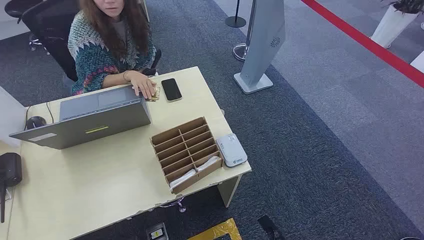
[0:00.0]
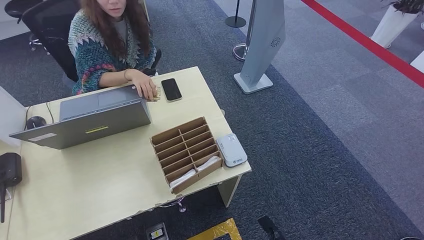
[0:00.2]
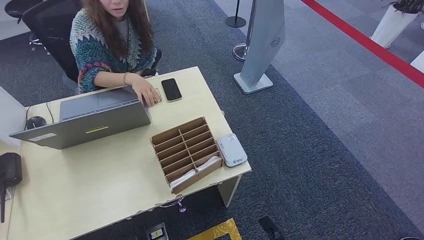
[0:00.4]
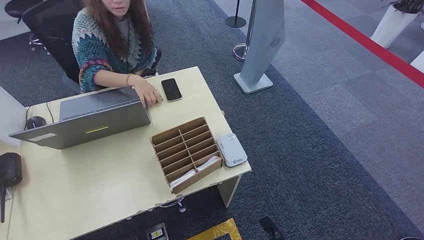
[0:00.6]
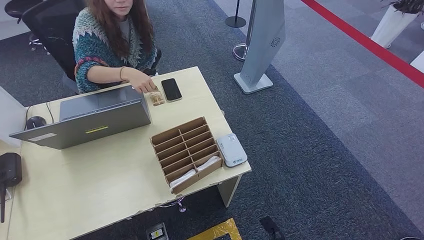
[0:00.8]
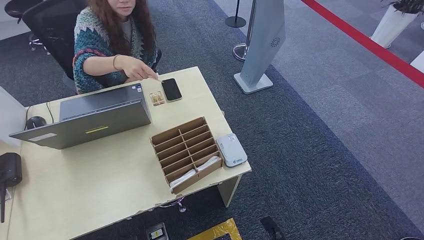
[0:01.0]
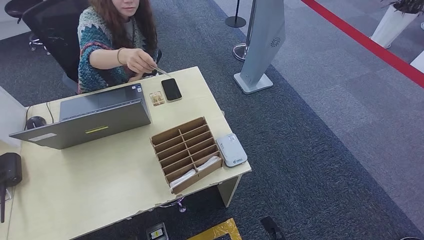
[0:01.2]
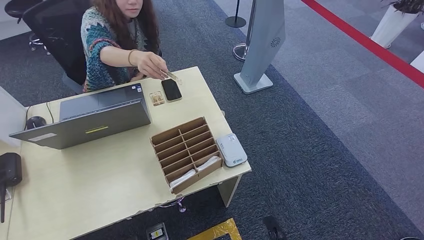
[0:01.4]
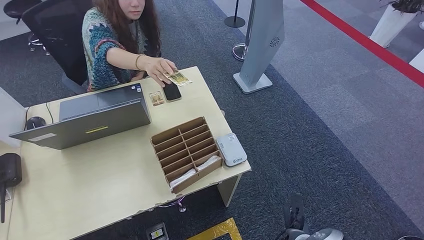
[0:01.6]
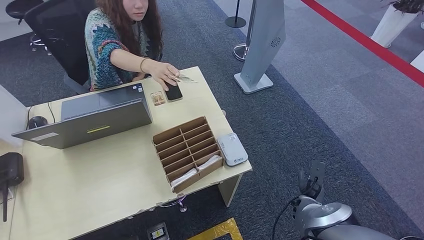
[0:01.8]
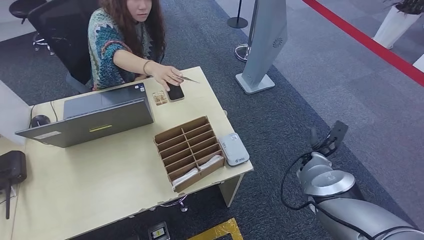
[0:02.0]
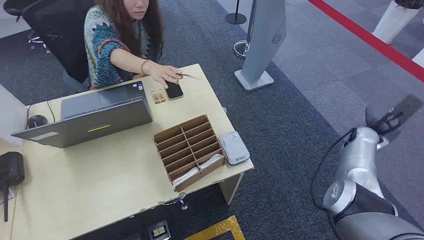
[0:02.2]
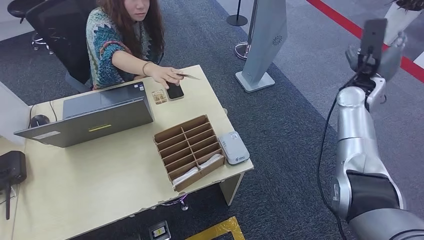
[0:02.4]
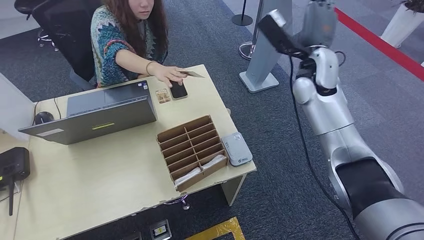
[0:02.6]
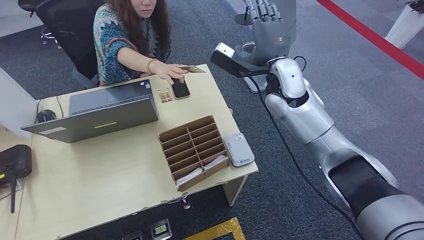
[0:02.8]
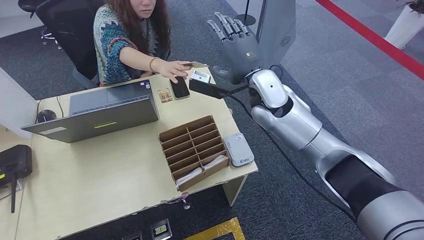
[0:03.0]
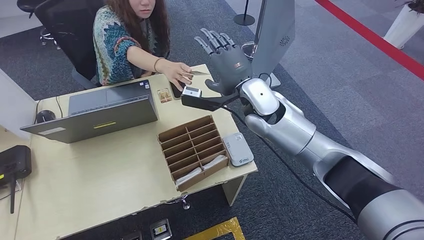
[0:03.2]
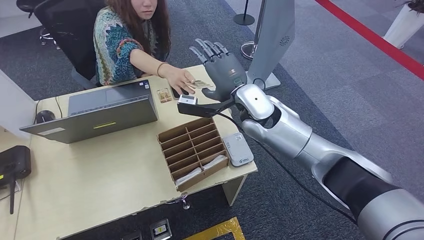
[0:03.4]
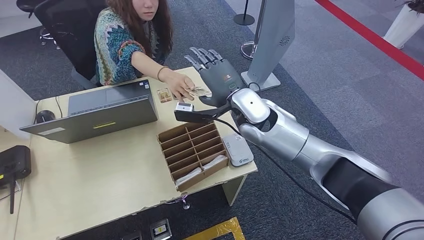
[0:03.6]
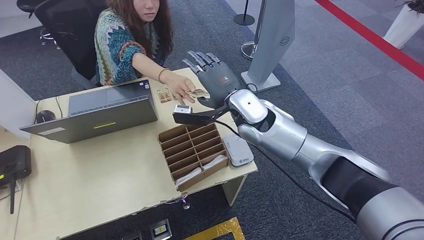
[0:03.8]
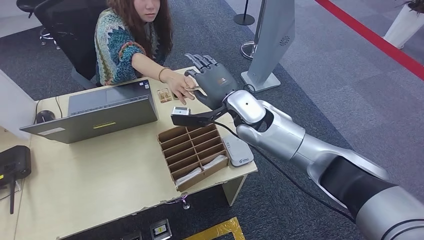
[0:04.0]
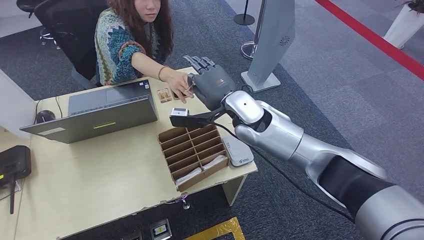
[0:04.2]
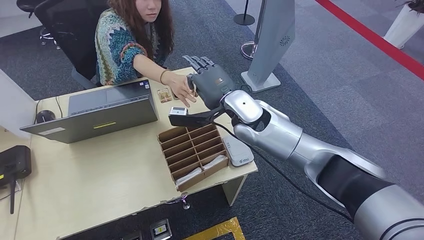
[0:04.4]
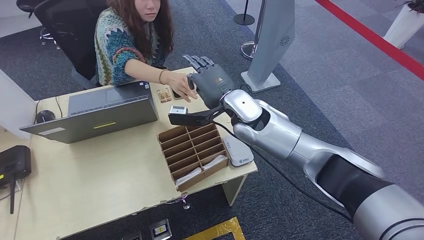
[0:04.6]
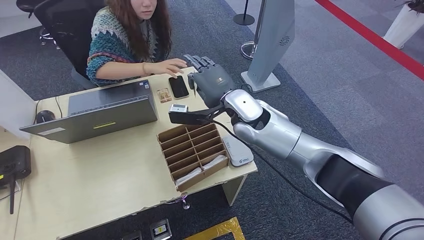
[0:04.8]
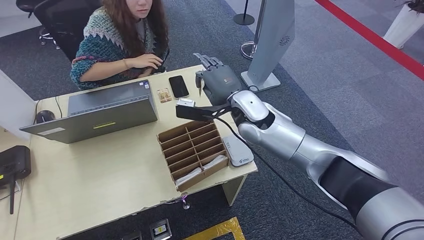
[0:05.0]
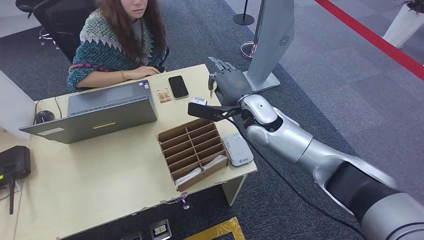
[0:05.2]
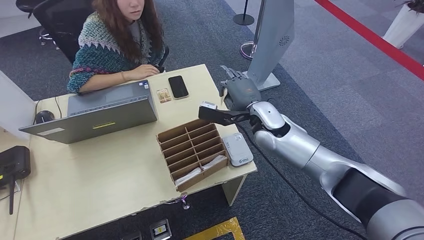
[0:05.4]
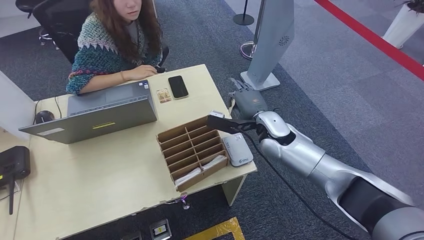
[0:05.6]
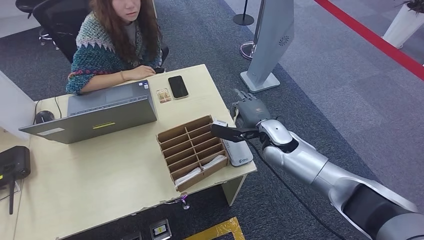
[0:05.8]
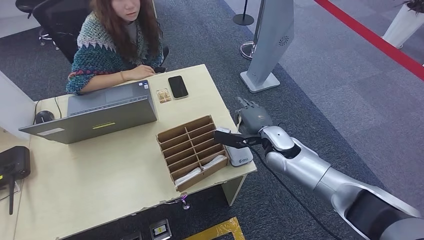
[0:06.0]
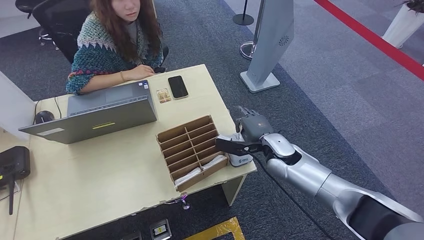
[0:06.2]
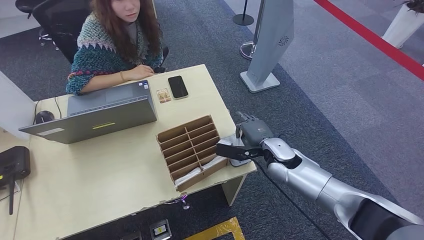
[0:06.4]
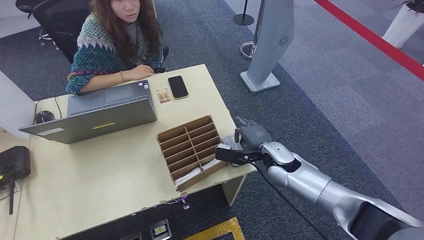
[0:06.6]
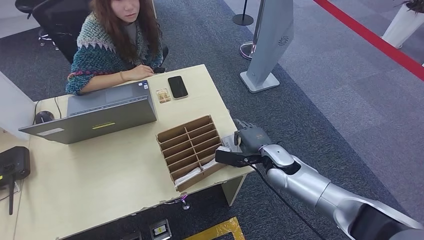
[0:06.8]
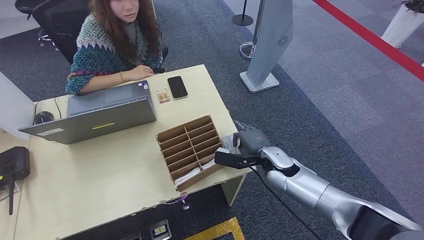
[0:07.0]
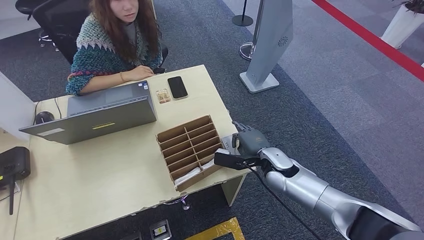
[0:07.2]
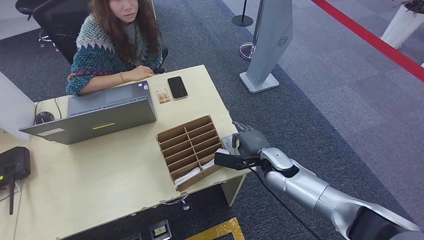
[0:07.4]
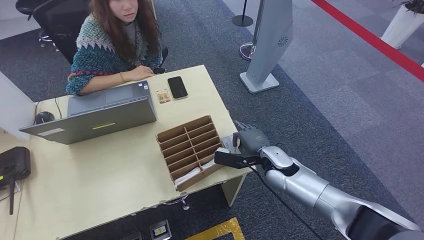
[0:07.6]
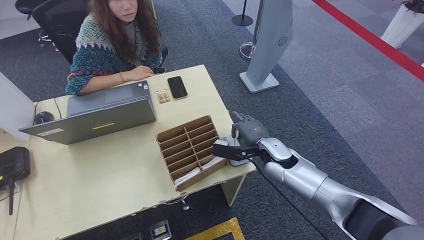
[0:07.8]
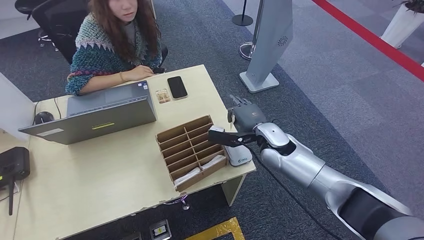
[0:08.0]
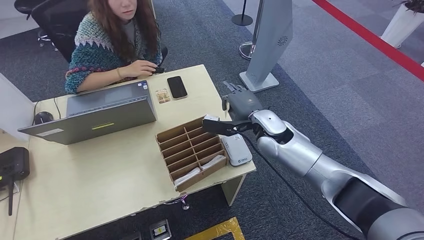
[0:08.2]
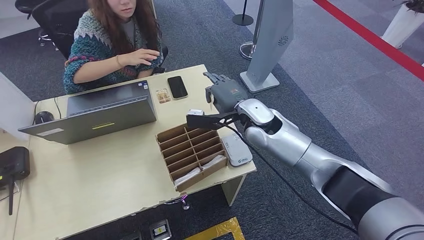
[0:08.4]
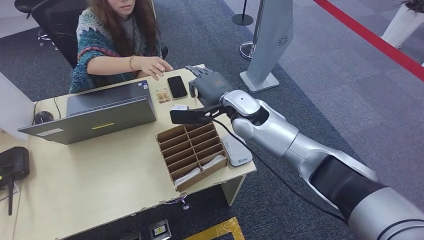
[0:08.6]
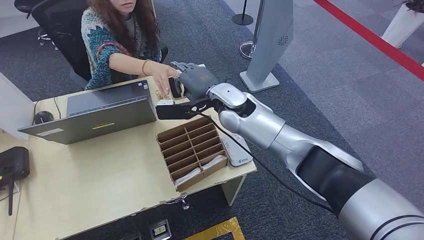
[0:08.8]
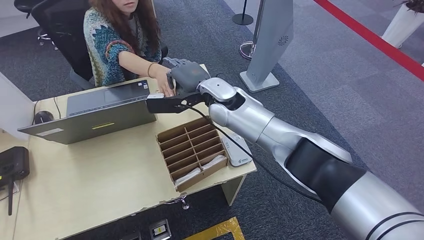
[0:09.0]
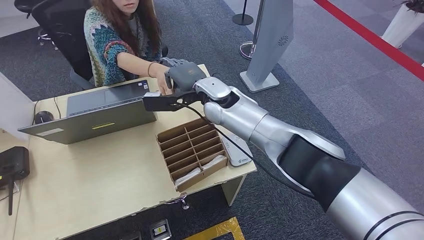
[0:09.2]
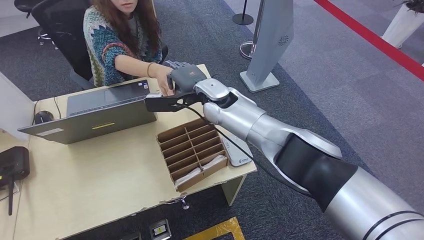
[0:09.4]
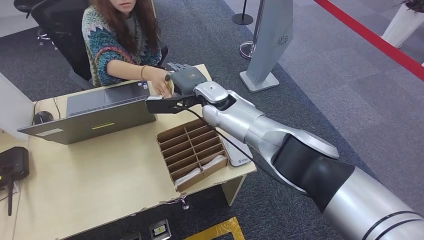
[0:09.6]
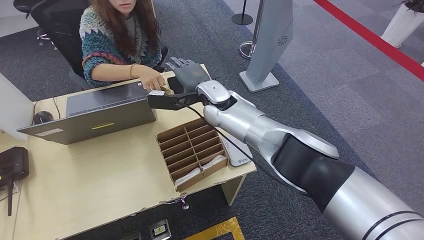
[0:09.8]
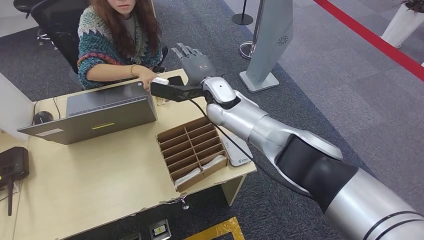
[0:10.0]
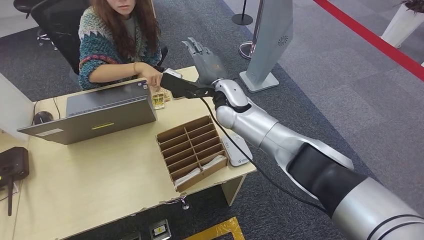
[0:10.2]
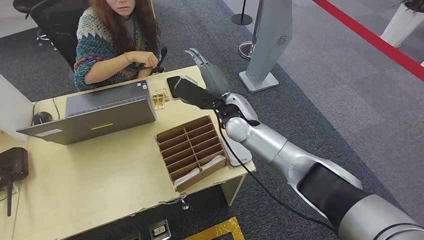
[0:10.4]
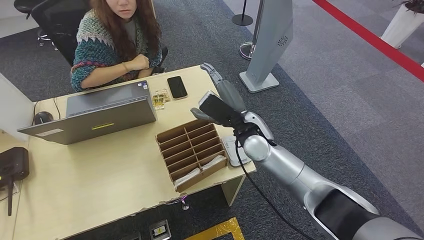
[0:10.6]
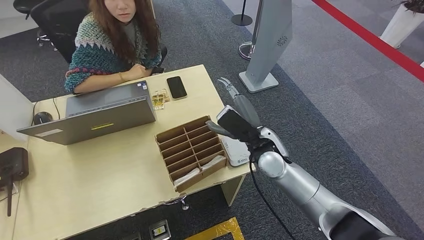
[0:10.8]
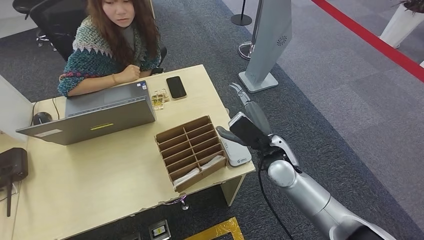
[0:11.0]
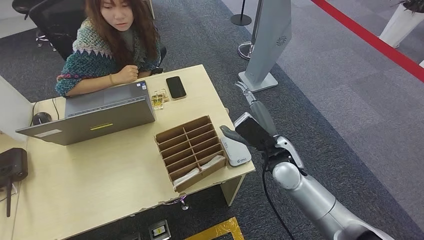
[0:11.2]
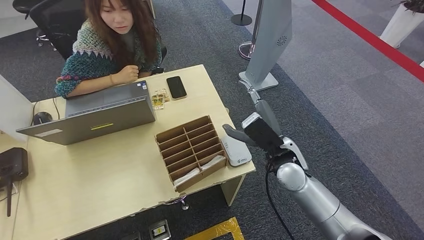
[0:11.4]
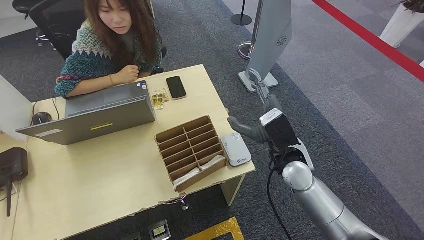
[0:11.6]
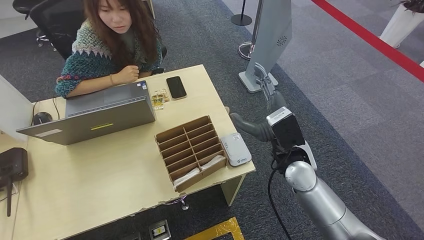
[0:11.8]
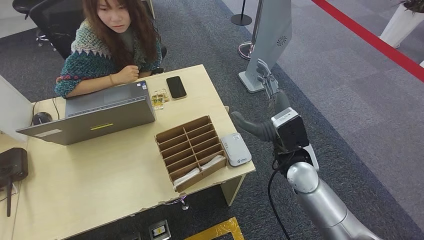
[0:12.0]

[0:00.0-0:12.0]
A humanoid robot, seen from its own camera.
Step, 0:00.0 to 0:04.6: Take the ID card from the person's hand.
Step, 0:04.8 to 0:08.0: Place the ID card on the card reader.
Step, 0:08.2 to 0:10.2: Hand the ID card to the person.
0:03.0 to 0:04.4: The right hand moves to the left, about 5 cm.
0:06.0 to 0:07.6: The right hand changes place by approximately 5 cm.
0:09.0 to 0:10.4: The right hand moves approximately 5 cm.
0:10.4 to 0:12.0: The right hand goes approximately 15 cm backward and to the right.

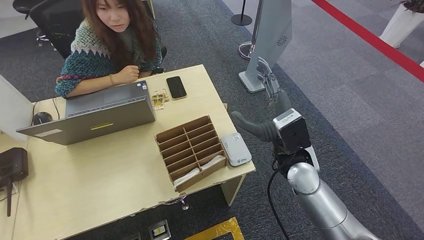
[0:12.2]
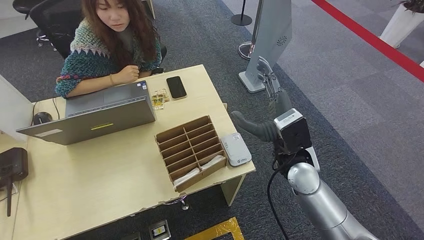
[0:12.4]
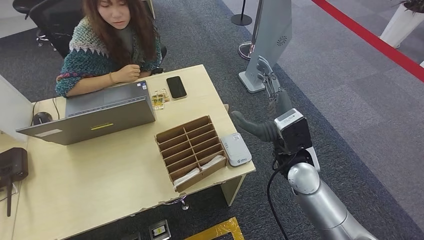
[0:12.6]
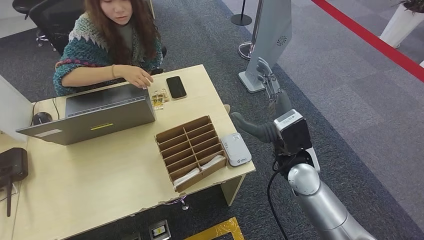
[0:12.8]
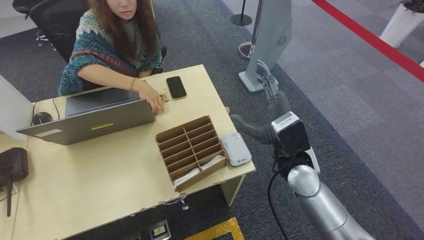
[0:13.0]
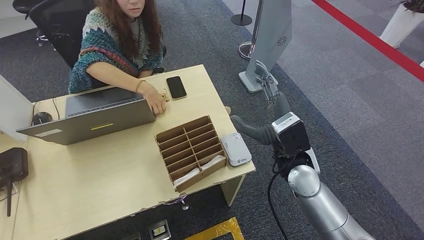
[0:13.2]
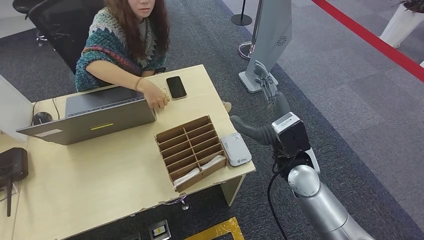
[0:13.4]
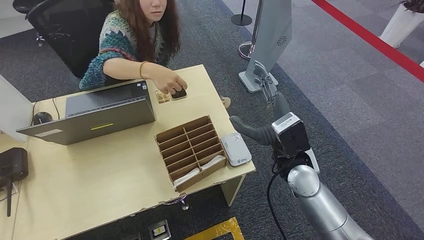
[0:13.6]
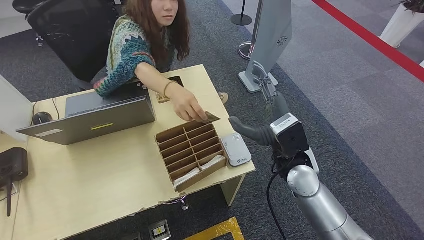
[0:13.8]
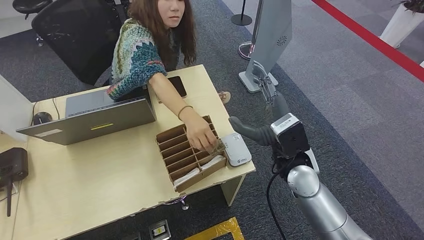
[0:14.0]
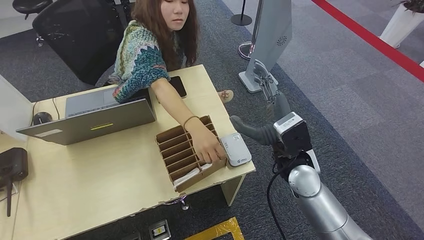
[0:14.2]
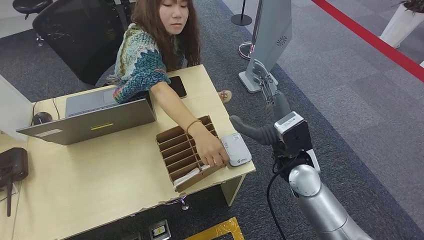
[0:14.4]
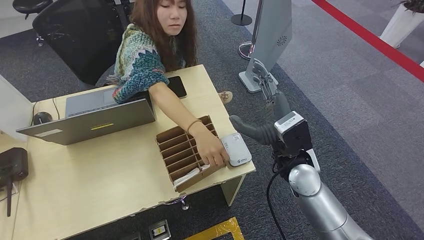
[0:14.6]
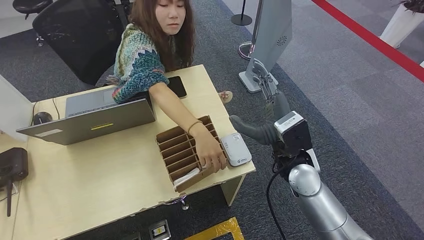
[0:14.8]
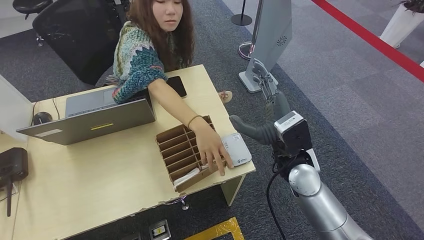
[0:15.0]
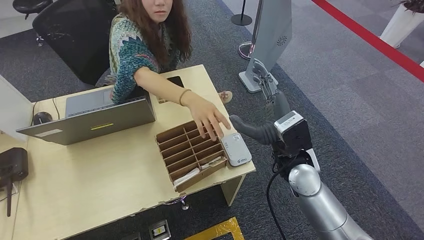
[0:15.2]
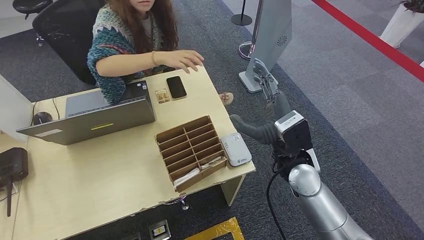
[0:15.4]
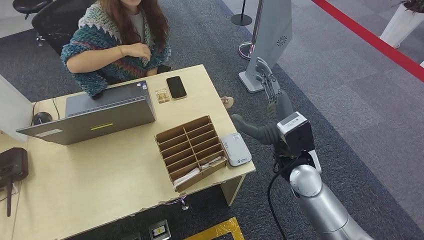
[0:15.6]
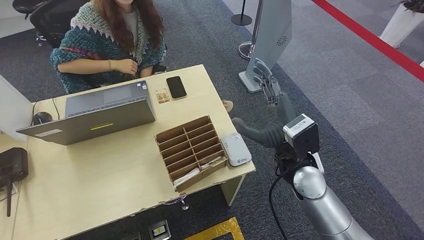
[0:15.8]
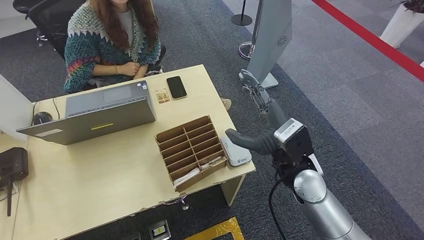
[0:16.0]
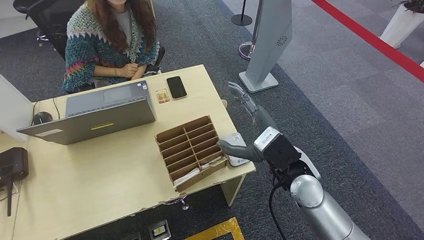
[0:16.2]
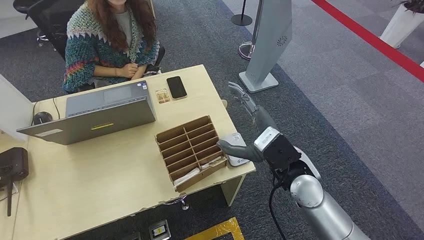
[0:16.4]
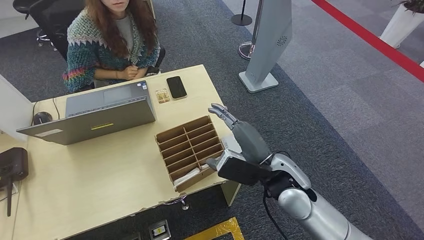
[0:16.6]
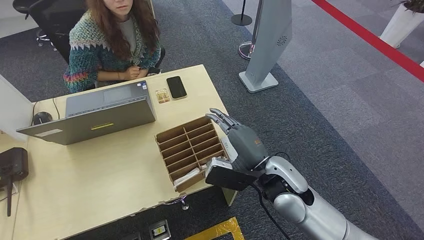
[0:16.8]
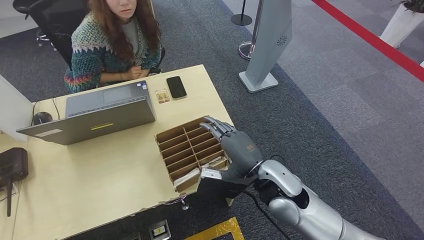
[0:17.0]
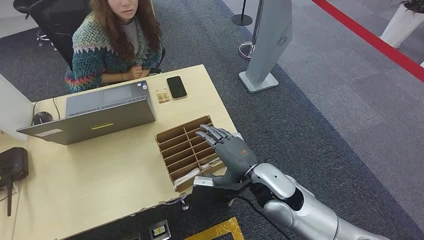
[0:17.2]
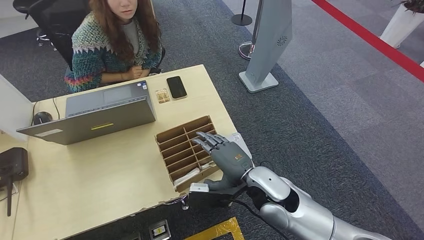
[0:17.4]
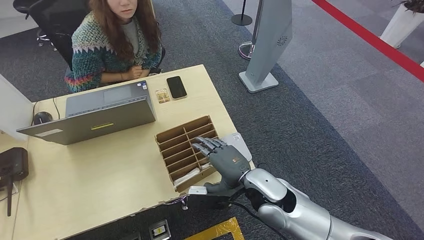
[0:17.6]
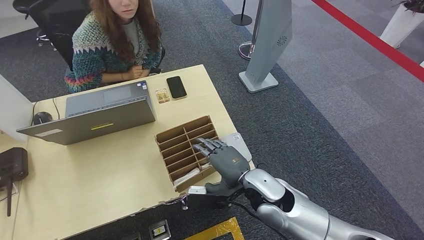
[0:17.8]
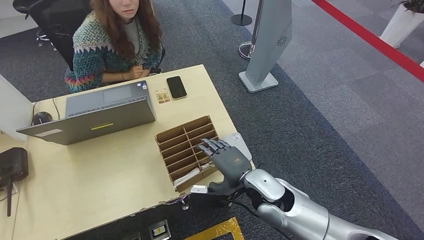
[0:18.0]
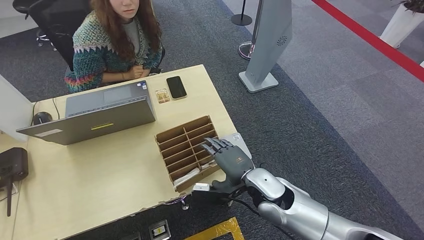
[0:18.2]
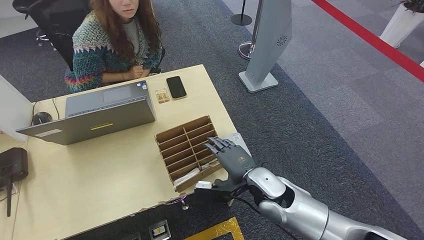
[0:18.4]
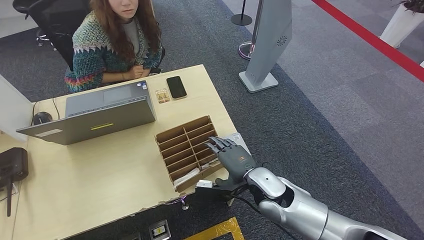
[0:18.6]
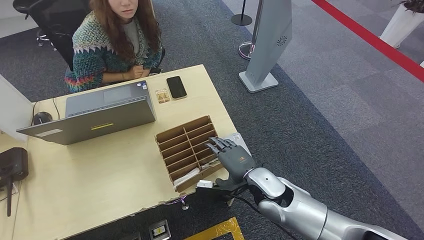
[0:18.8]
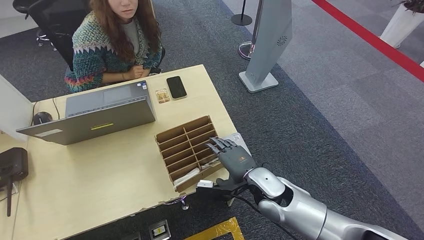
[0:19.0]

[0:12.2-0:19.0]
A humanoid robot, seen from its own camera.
0:12.2 to 0:15.0: Both hands stay about where they are.
0:15.0 to 0:16.2: The hands stay close to where they were, moving slightly.
0:16.2 to 0:17.6: The right hand heads downward and to the left, covering about 10 cm.
0:17.6 to 0:19.0: The right hand shifts by approximately 5 cm.
